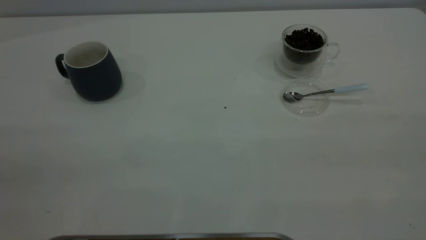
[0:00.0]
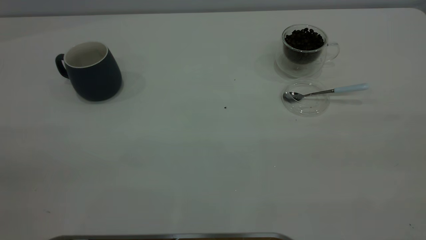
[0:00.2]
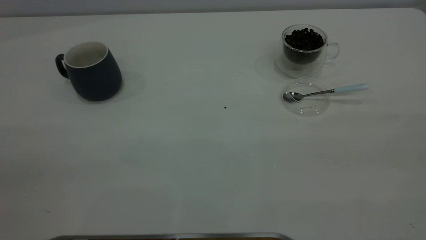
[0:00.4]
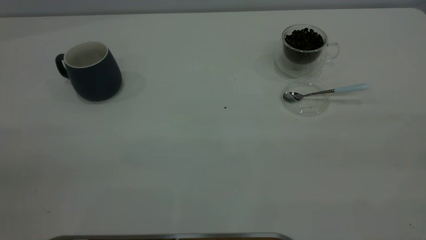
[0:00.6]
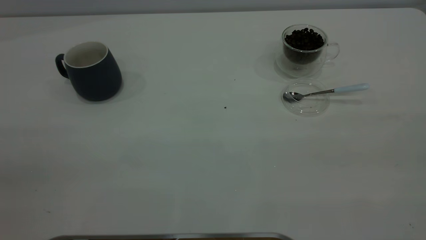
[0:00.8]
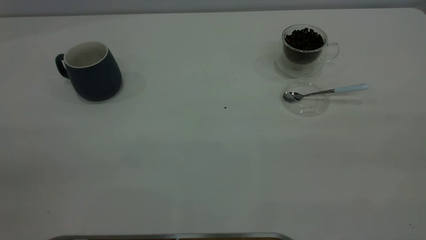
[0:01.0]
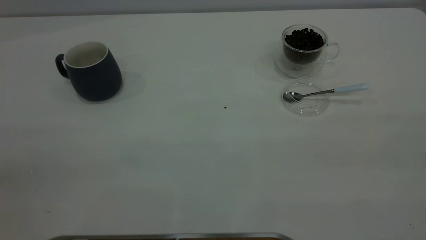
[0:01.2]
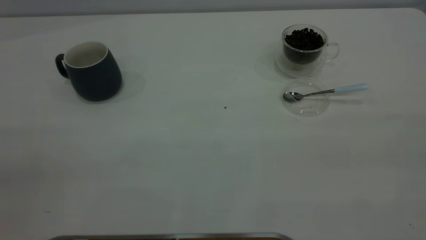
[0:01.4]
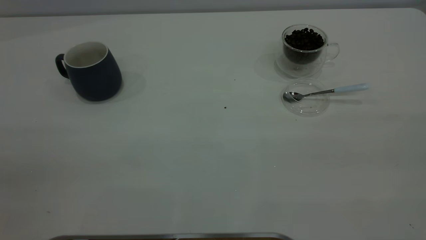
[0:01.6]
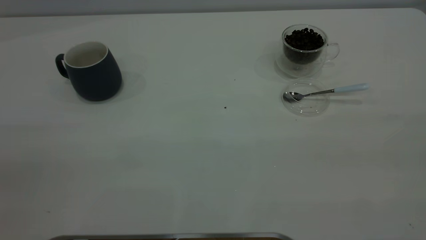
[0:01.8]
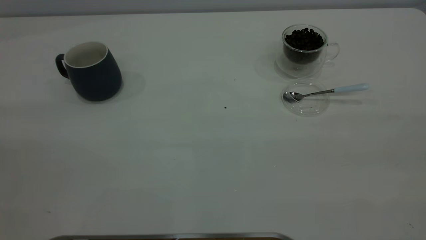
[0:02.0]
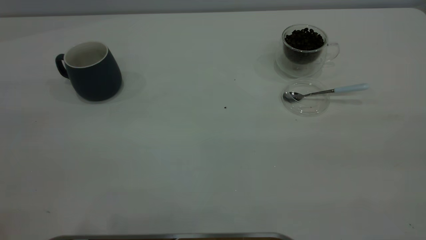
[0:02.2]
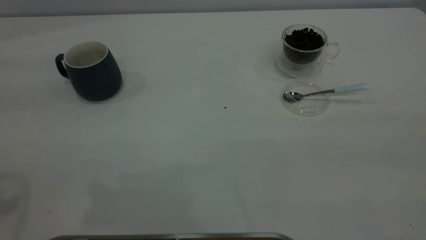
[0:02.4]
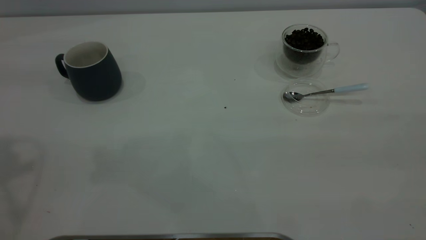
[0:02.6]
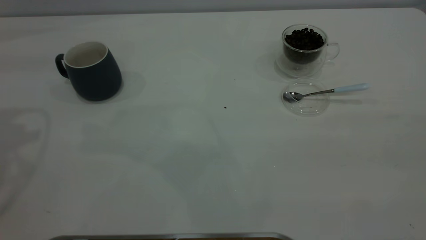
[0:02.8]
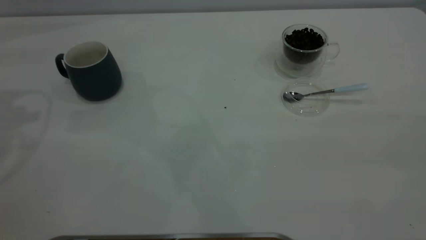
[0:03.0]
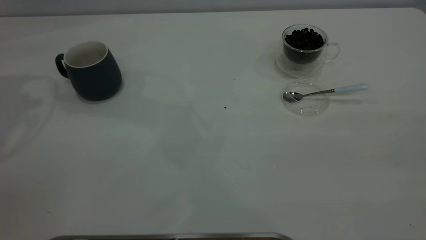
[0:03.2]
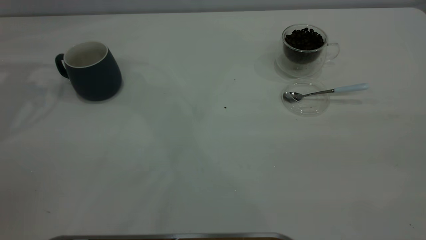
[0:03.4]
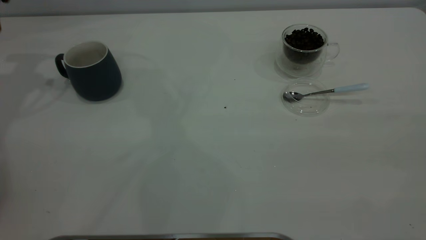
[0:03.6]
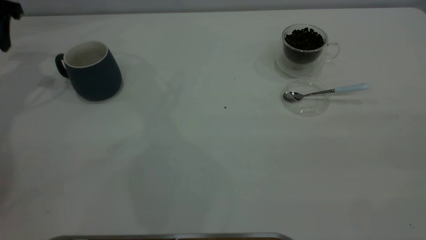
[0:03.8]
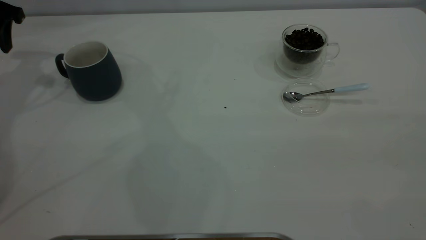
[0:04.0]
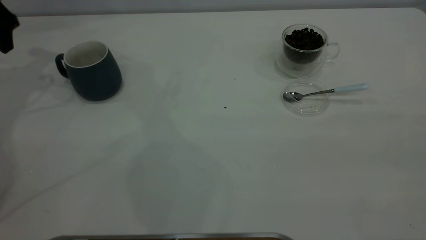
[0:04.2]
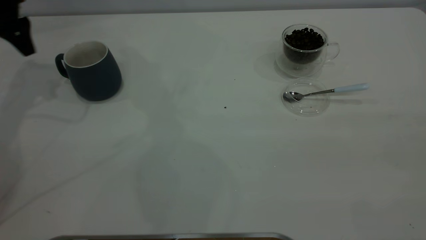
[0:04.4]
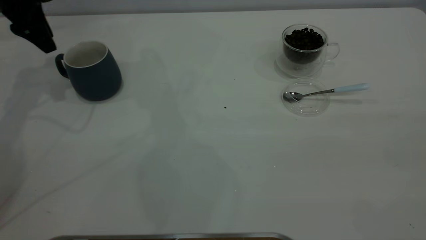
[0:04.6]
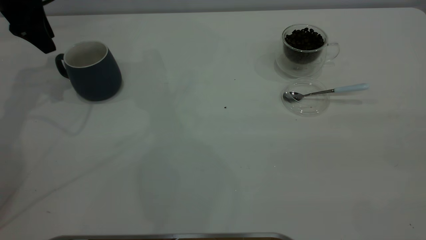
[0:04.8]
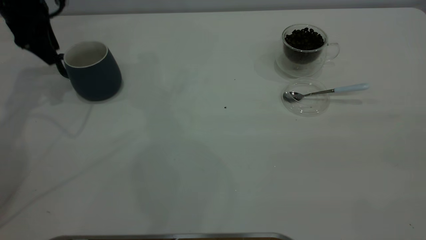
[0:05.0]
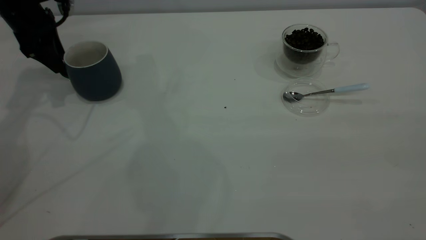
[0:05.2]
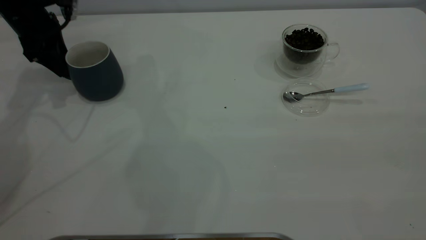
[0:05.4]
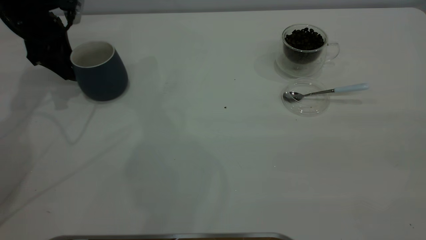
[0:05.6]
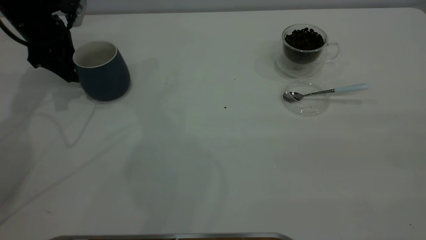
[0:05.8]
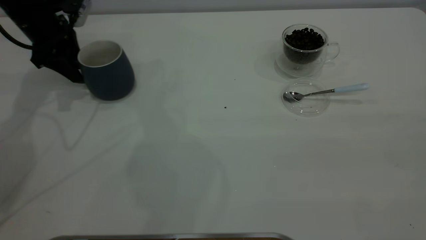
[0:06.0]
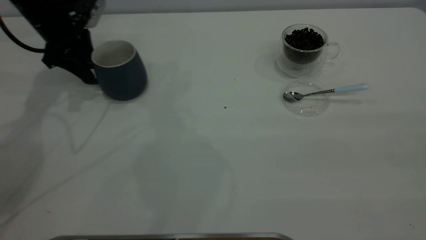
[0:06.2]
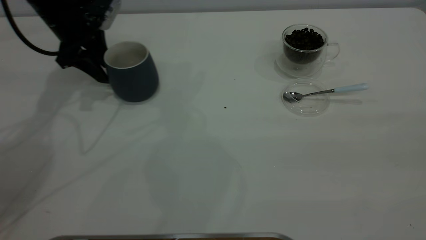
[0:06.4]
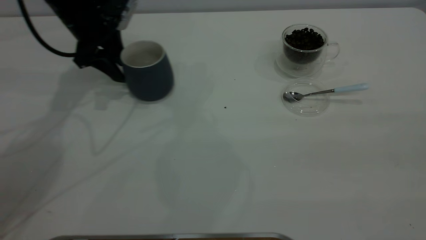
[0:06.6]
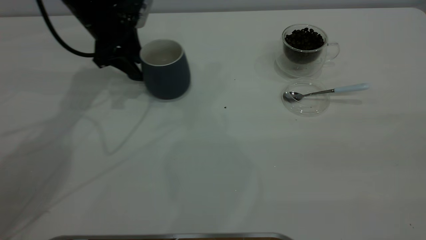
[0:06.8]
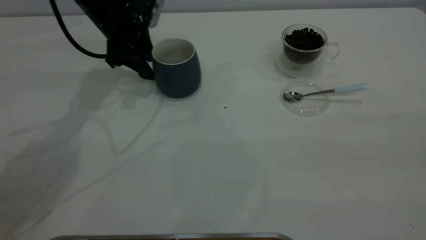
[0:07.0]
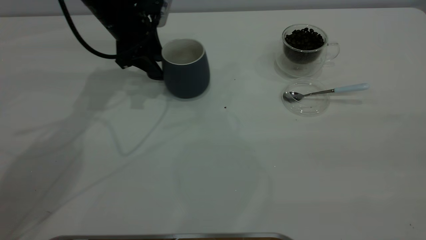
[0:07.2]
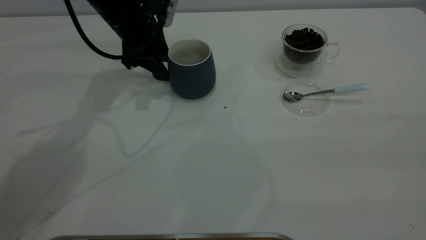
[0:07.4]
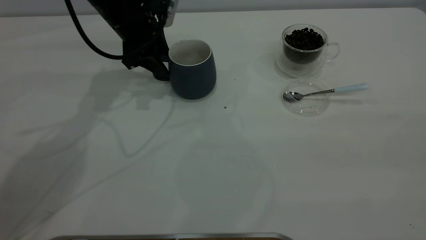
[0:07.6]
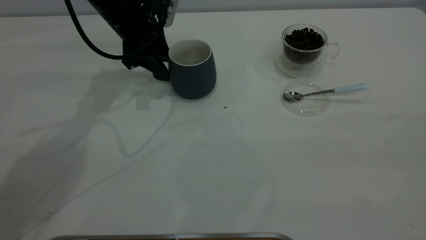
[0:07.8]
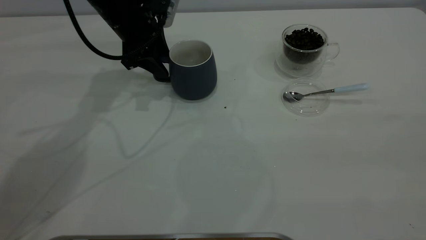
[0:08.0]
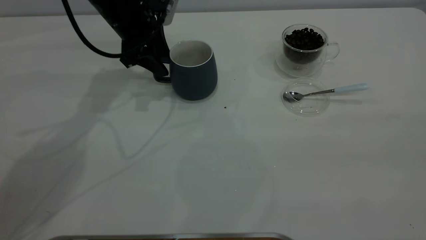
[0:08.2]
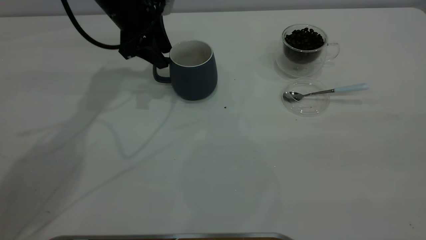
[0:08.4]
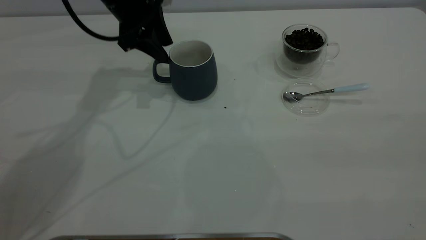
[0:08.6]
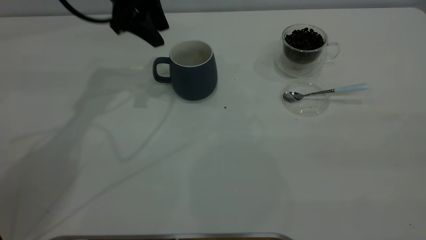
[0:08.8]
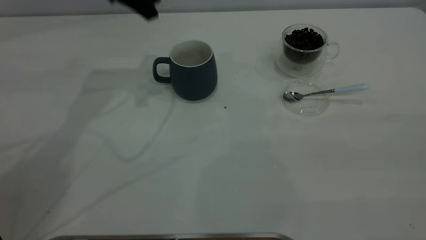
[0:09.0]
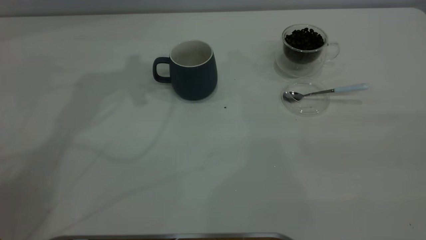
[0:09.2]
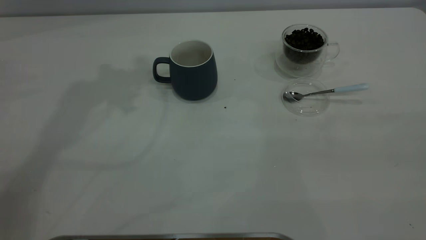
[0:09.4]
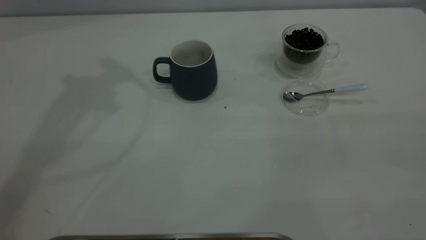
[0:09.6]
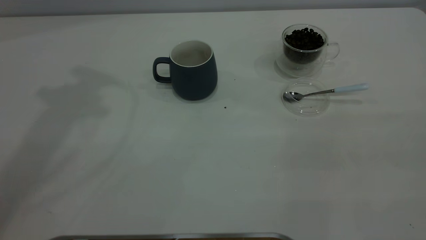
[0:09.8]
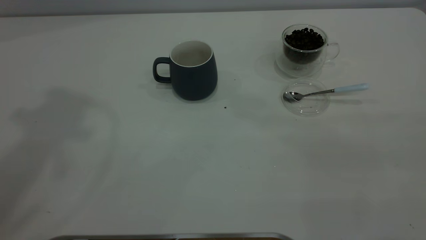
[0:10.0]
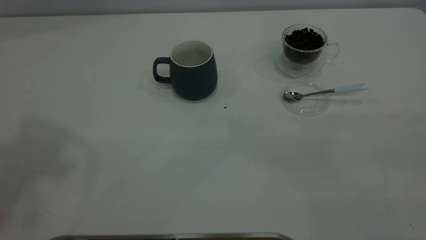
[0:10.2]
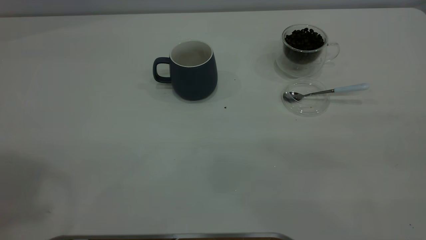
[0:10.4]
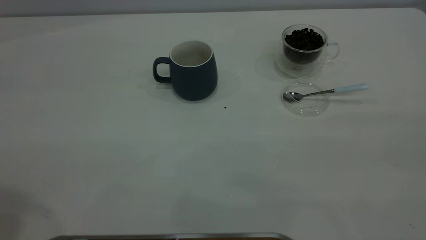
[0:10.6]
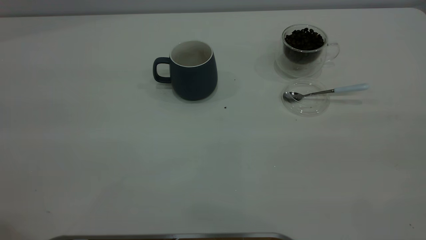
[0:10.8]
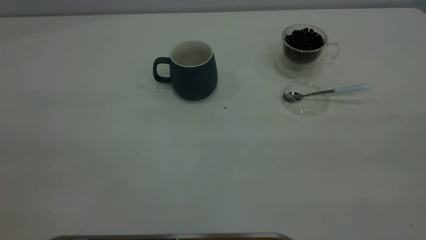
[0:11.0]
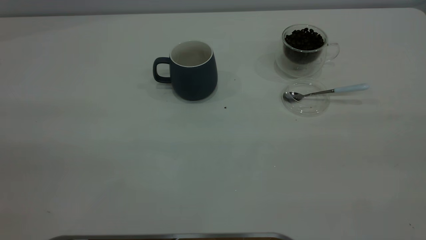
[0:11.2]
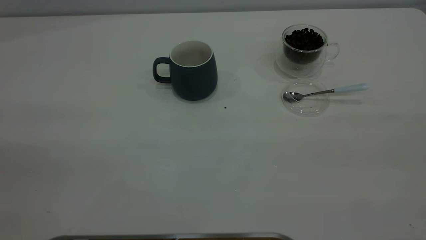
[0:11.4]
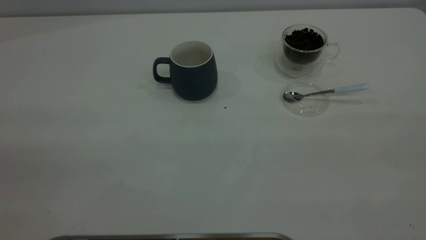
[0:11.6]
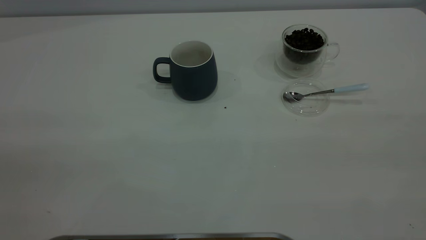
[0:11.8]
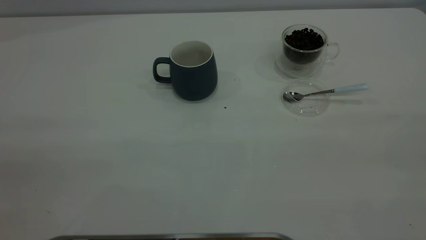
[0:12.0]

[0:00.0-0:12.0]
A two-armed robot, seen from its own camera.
Task of the whole recording: the left gripper place the grey cup in the center of the table, the right gripper take the blue spoon from the cup lid and scoop out the coffee beans from the coffee cup and put them into the grey cup, the right gripper put the spoon back into the cup lid.
Step, 0:00.0 to 0:08.8: Move the cup to the center of view.
0:00.0 to 0:01.6: The two grippers keep their place.
0:03.0 to 0:04.4: The left gripper goes approximately 20 cm forward and downward.
0:04.4 to 0:06.0: The left gripper travels downward by approximately 5 cm.
0:06.0 to 0:07.6: The left gripper heads to the right, covering approximately 15 cm.
0:07.6 to 0:09.0: The left gripper travels upward by approximately 15 cm.

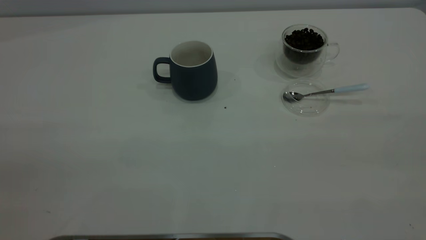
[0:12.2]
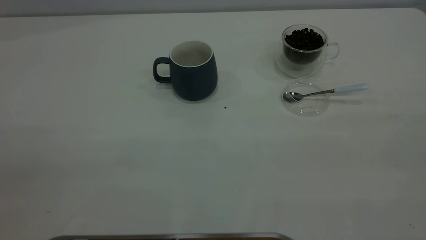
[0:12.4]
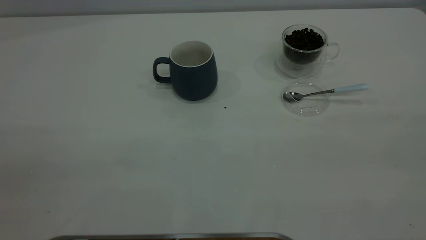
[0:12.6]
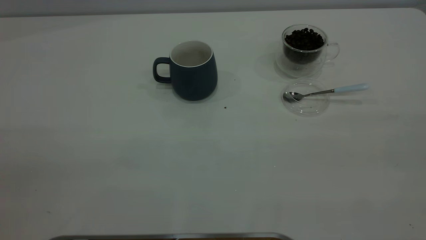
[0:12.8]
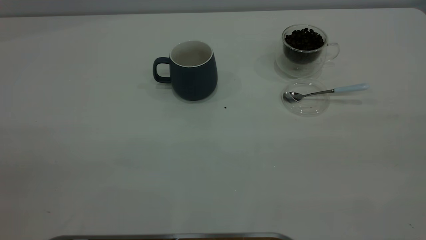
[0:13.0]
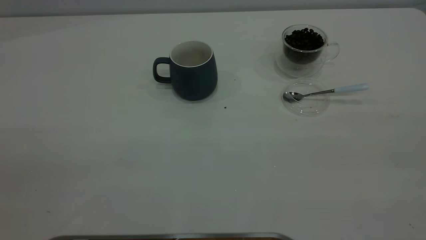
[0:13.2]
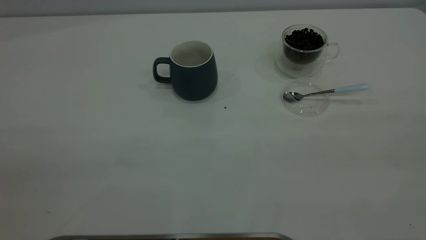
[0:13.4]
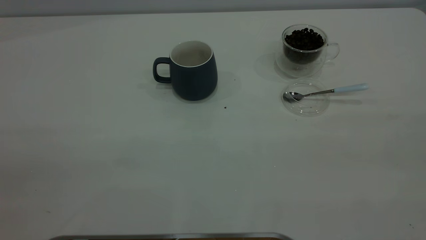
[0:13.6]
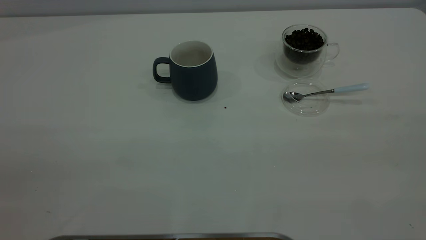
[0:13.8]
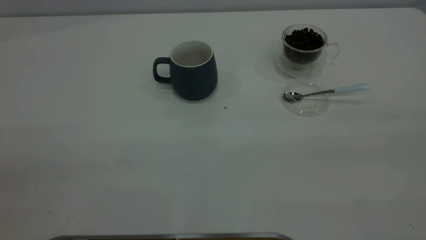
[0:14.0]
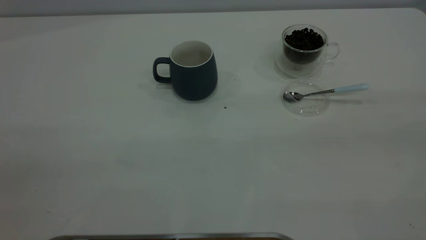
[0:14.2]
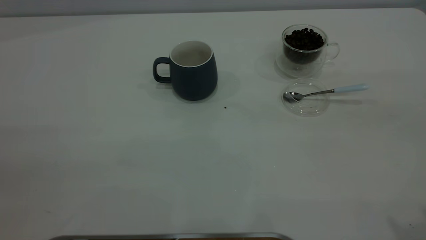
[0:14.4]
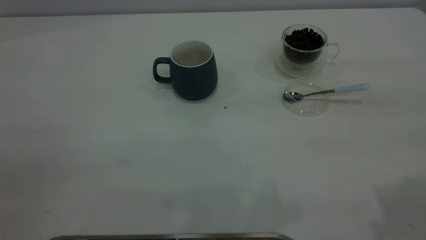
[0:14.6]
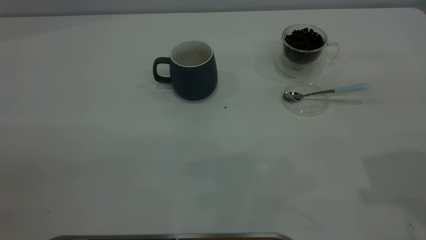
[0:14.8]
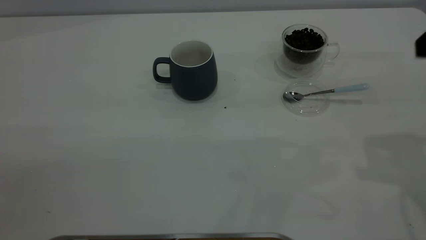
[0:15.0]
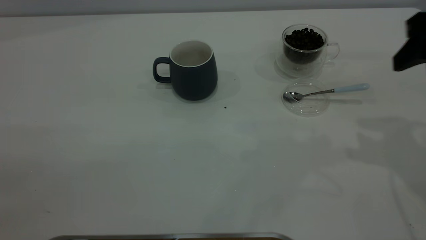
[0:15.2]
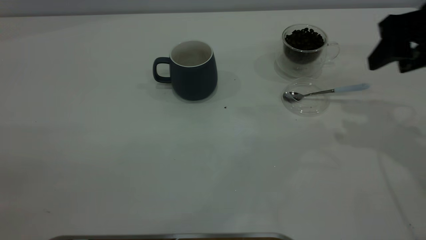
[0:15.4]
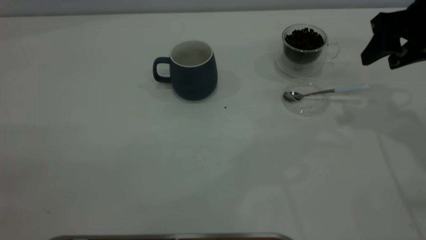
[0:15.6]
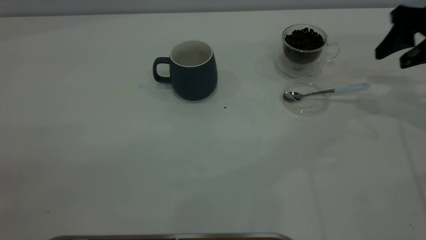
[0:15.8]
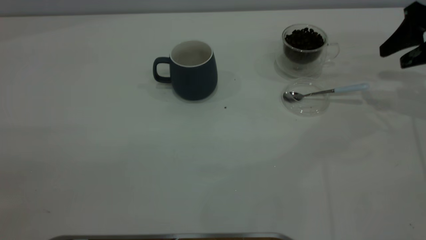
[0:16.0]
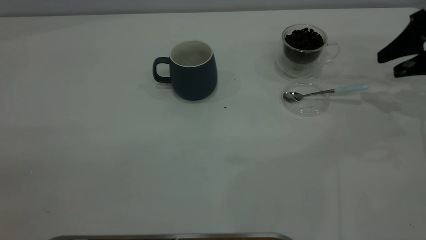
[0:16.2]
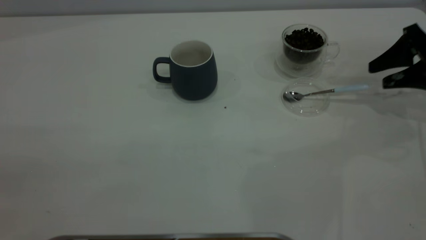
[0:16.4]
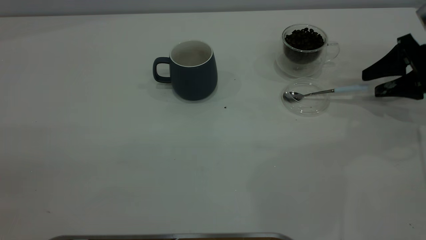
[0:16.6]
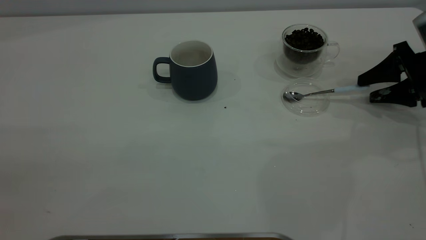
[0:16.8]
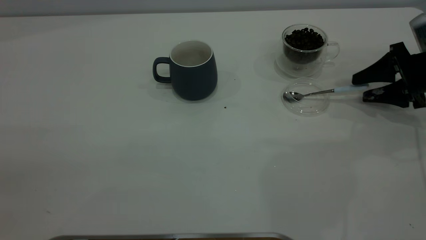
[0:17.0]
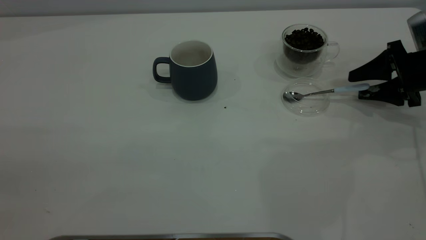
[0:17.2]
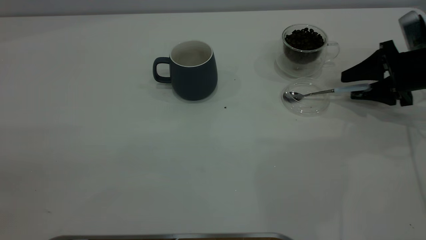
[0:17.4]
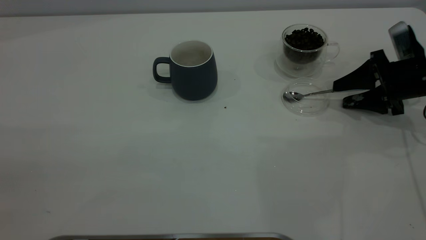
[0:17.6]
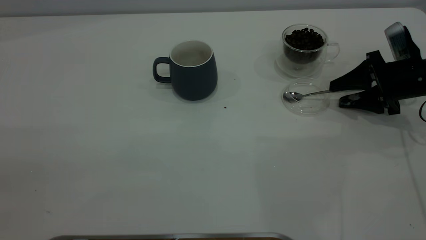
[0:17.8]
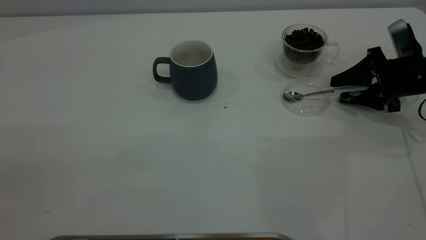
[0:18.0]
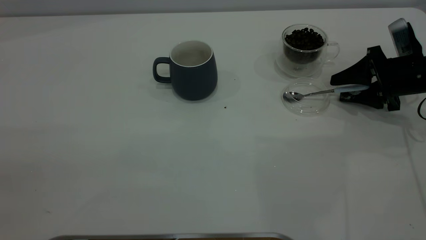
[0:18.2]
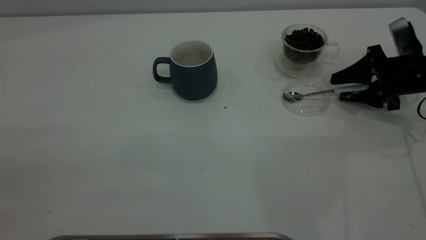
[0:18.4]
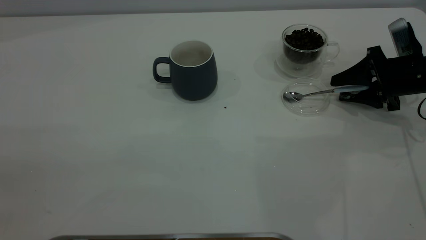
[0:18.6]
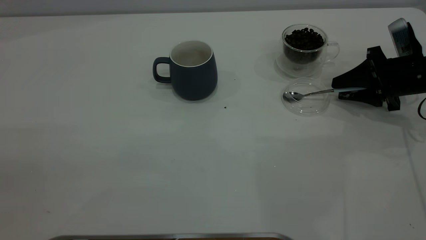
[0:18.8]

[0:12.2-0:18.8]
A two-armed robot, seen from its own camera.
Task of the whole recording: the left gripper place the grey cup in the center of the table, the right gripper take the blue spoon from the cup lid and scoop out the coffee beans from the coffee cup and put them into the grey cup, the right gripper put the spoon back into the cup lid.
0:13.8 to 0:15.4: The right gripper is displaced forward and downward by roughly 35 cm.
0:15.4 to 0:17.2: The right gripper goes roughly 15 cm downward and to the right.
0:17.2 to 0:18.8: The right gripper closes its fingers.
